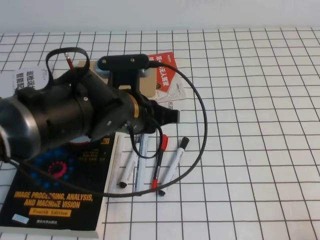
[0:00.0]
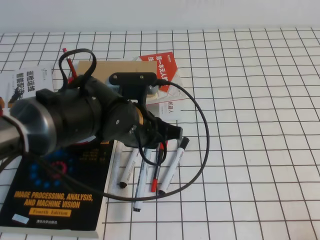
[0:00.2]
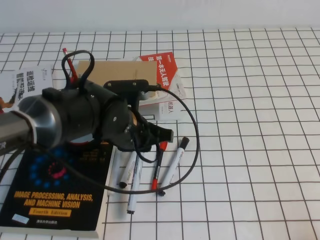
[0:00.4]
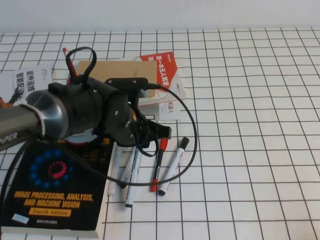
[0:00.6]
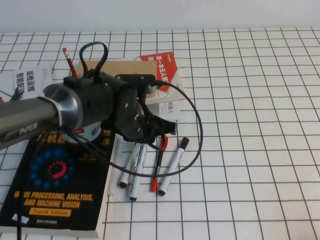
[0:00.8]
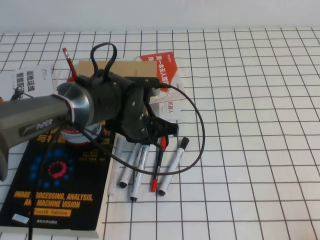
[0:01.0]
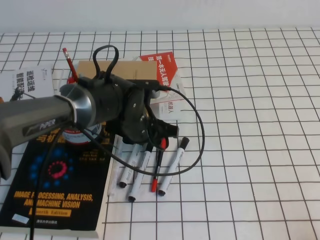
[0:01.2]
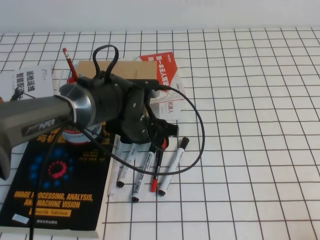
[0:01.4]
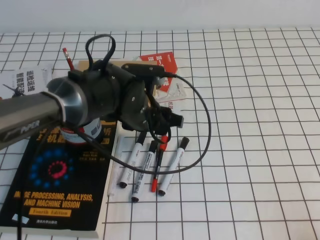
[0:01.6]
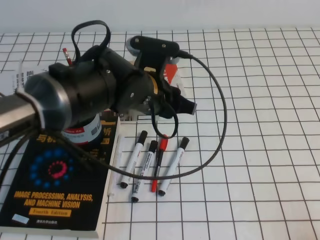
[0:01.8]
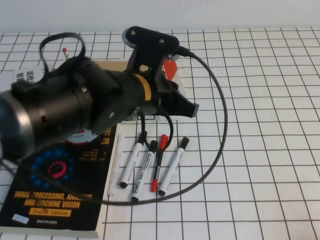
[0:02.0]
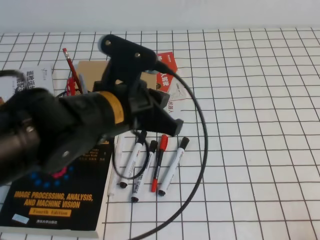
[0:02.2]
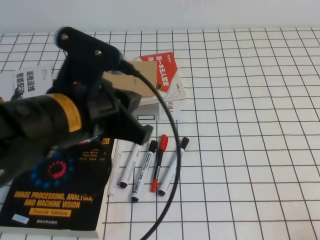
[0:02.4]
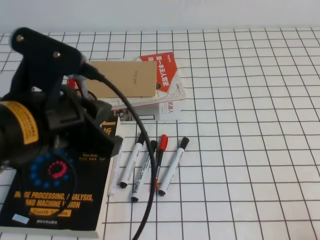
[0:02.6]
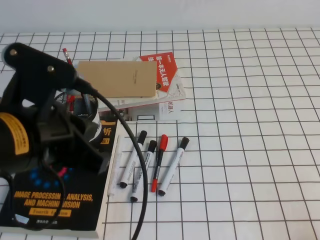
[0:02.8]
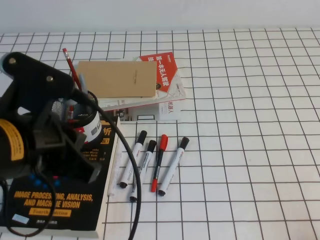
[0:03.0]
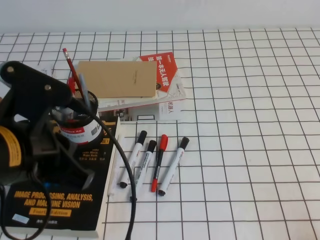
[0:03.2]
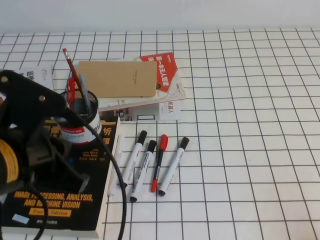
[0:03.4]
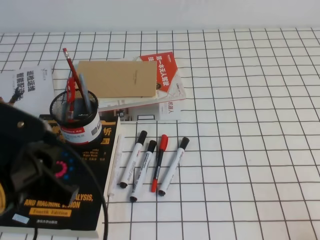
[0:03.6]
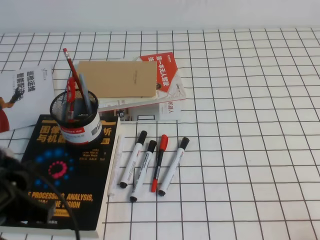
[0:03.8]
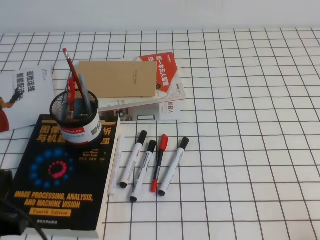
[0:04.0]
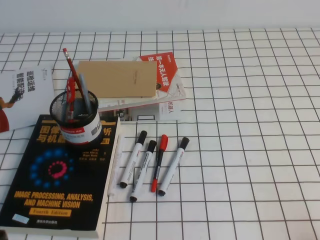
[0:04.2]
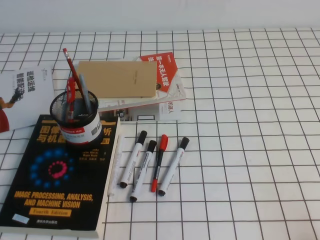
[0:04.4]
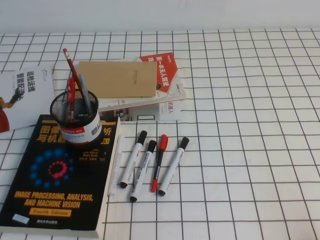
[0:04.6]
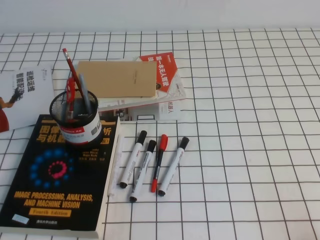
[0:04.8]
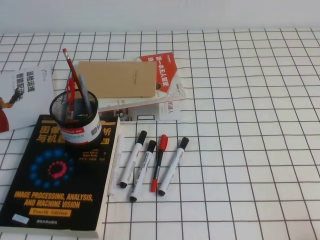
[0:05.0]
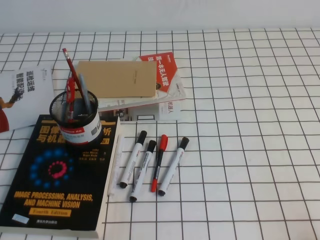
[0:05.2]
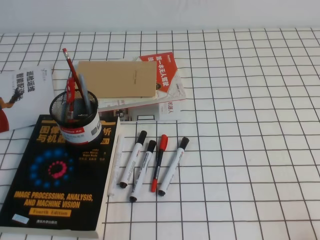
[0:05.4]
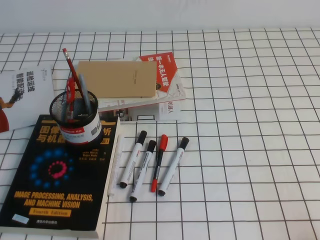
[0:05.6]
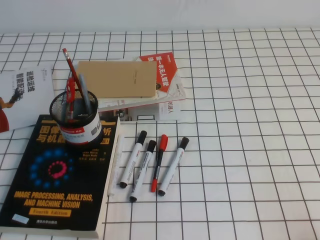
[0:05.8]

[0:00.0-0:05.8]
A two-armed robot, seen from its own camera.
Step, 0:00.0 to 0:05.8: Pick up the pen from the pen holder.
0:00.0 to 0:01.4: The left gripper heads downward and forward, covering about 10 cm, and opens up.
0:01.4 to 0:02.8: The left gripper travels backward, upward and to the left by some 25 cm, and closes.
0:02.8 to 0:04.4: The left gripper travels to the left, downward and backward by about 20 cm.
